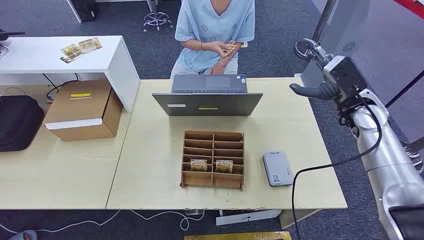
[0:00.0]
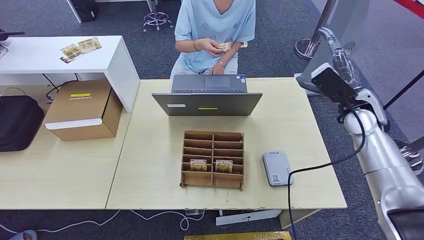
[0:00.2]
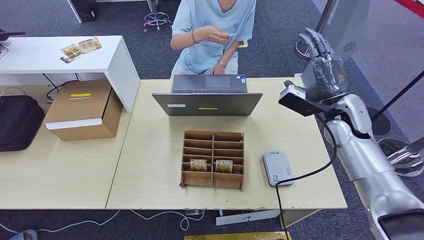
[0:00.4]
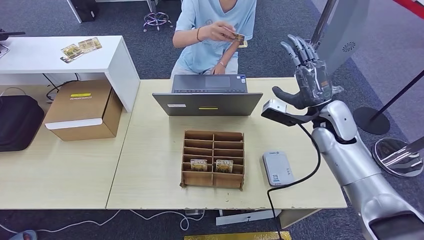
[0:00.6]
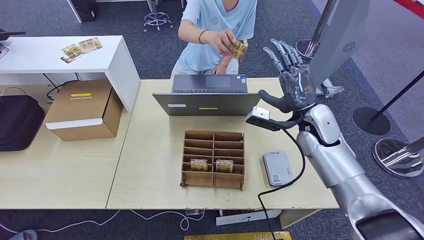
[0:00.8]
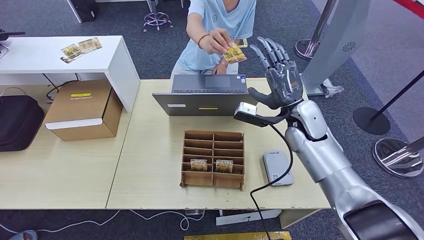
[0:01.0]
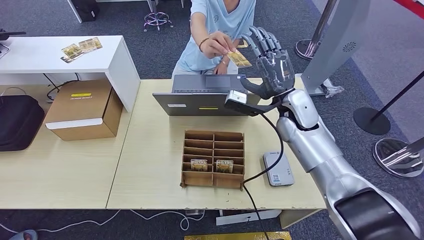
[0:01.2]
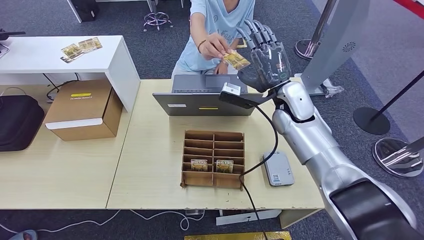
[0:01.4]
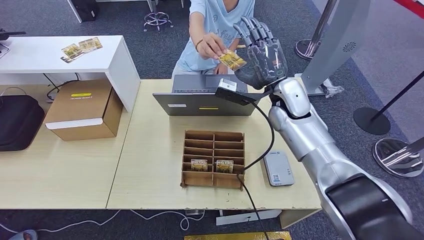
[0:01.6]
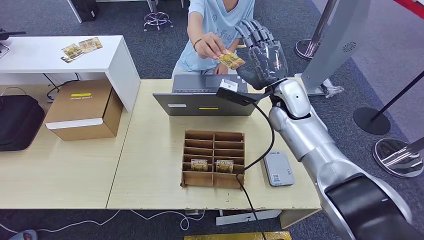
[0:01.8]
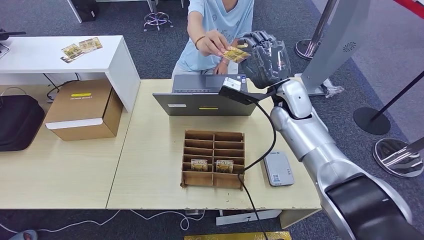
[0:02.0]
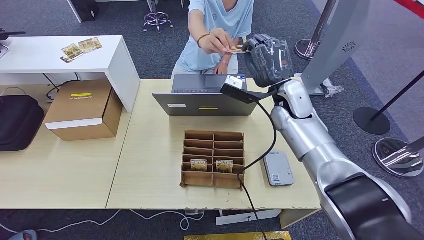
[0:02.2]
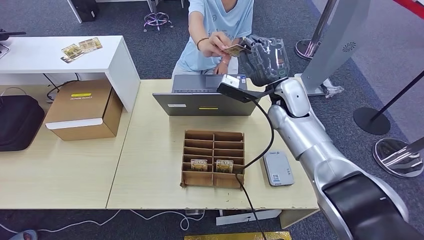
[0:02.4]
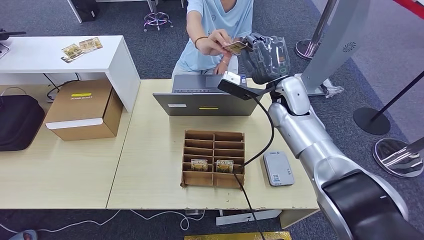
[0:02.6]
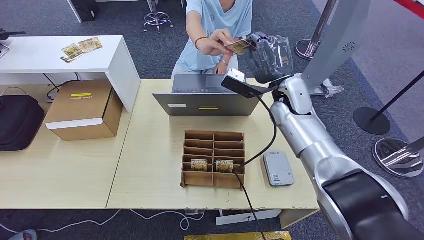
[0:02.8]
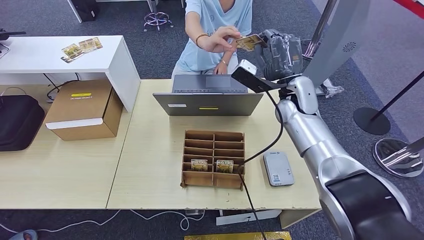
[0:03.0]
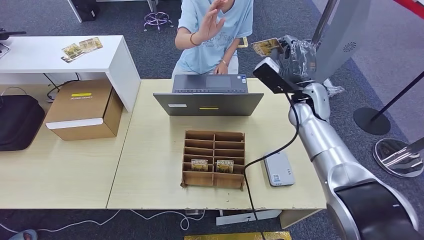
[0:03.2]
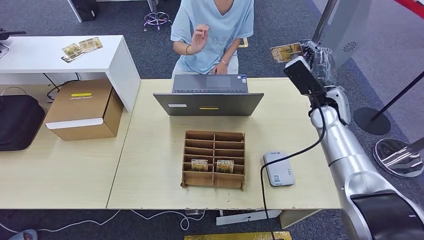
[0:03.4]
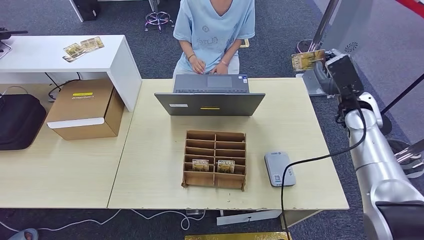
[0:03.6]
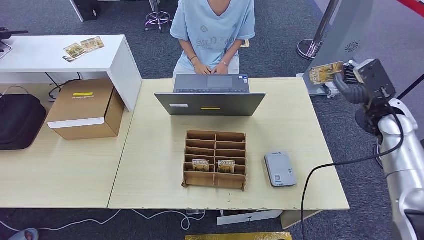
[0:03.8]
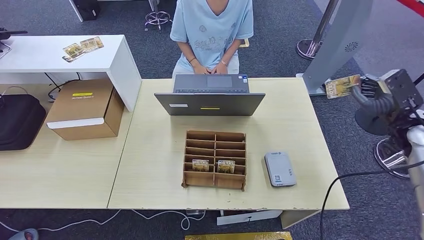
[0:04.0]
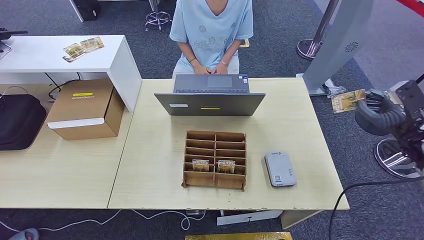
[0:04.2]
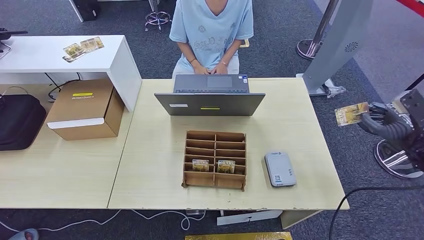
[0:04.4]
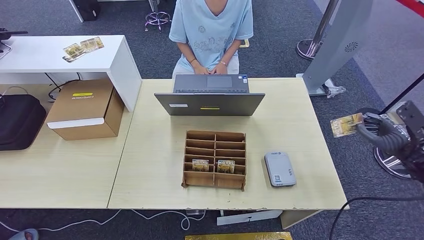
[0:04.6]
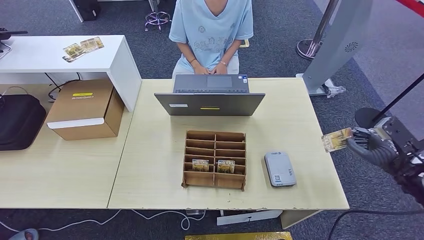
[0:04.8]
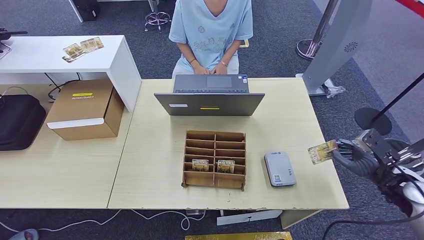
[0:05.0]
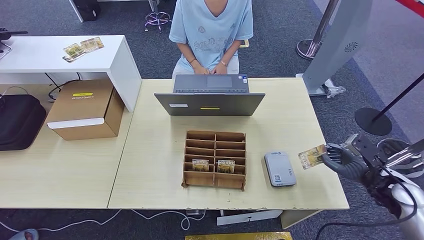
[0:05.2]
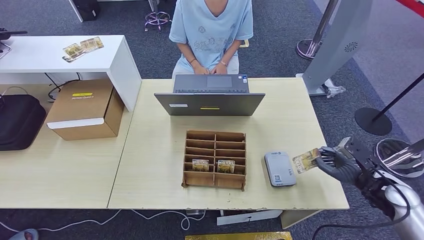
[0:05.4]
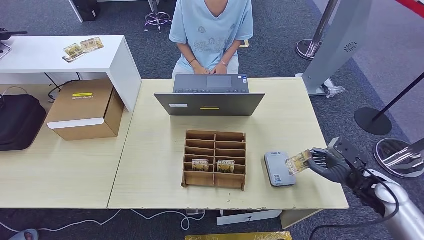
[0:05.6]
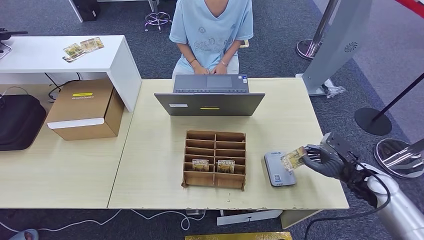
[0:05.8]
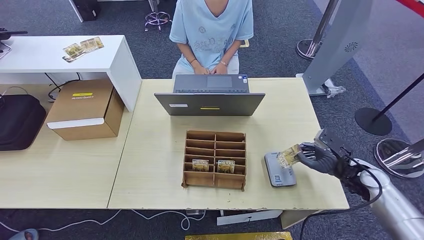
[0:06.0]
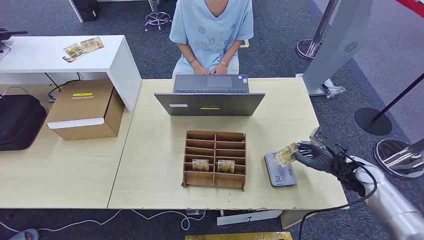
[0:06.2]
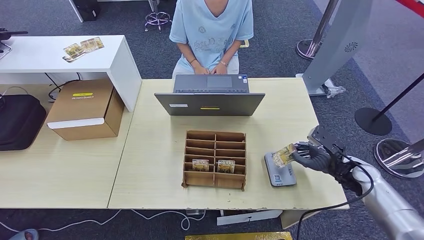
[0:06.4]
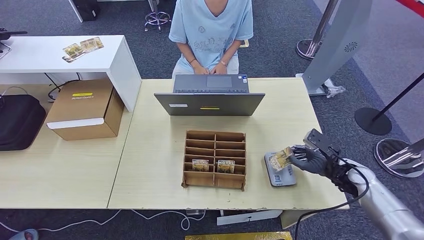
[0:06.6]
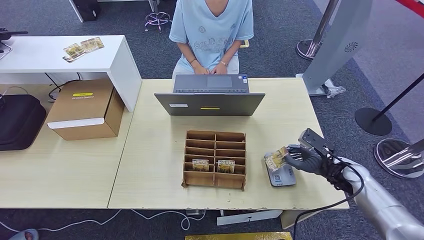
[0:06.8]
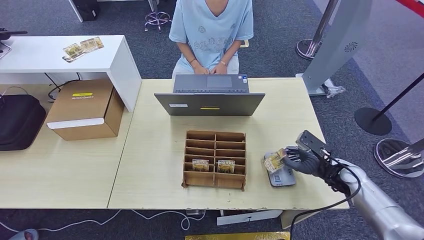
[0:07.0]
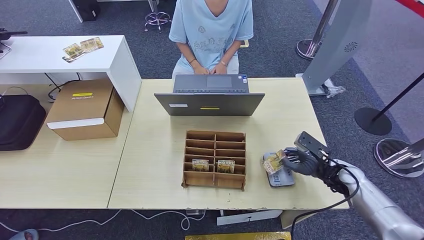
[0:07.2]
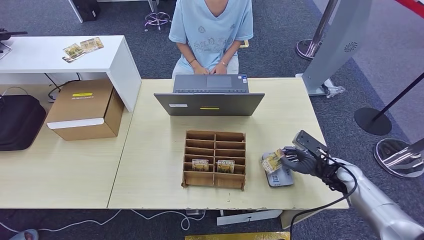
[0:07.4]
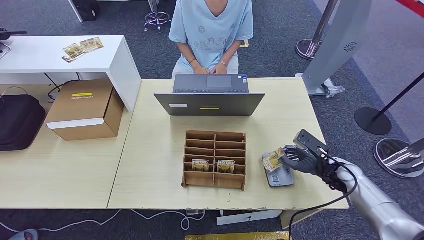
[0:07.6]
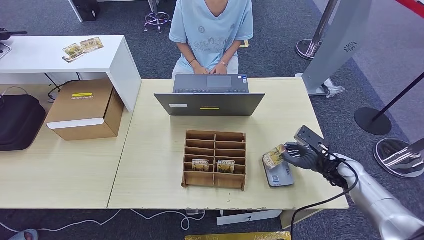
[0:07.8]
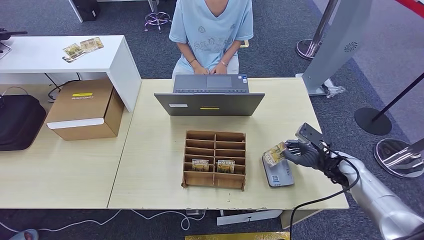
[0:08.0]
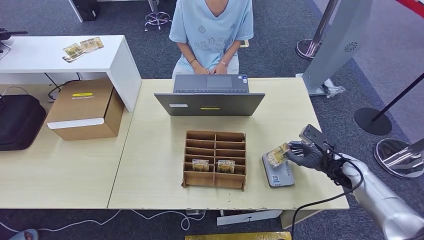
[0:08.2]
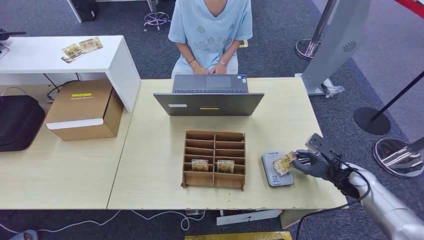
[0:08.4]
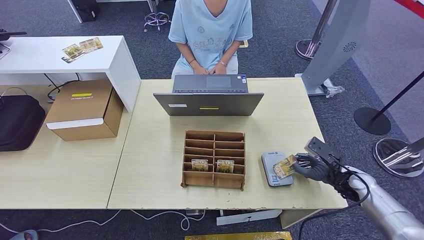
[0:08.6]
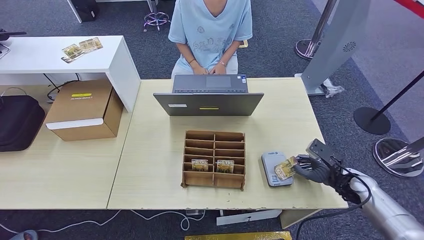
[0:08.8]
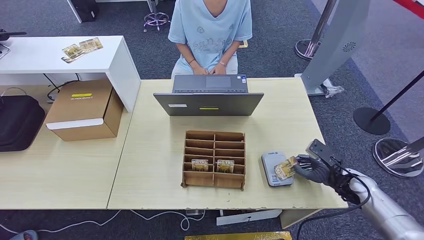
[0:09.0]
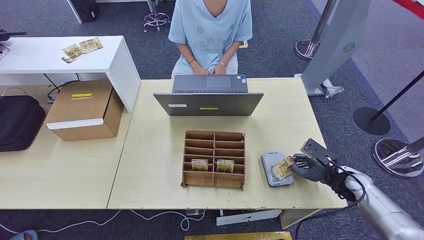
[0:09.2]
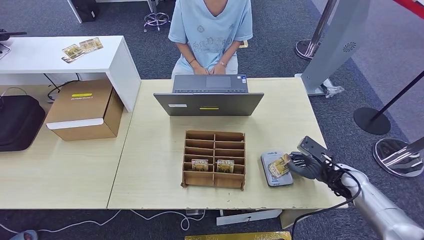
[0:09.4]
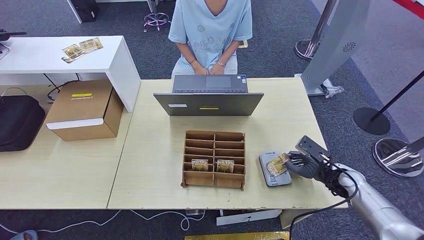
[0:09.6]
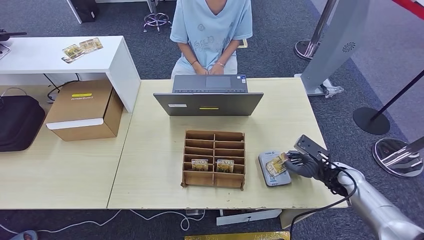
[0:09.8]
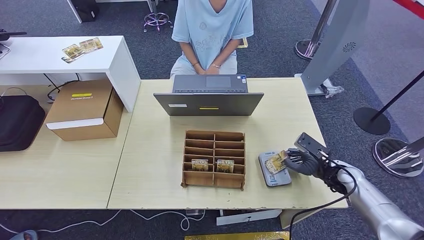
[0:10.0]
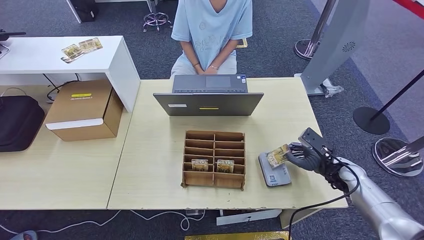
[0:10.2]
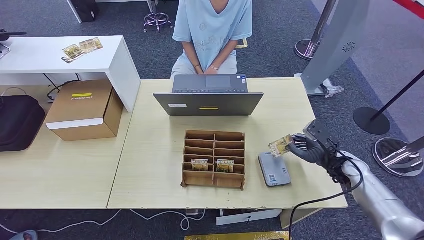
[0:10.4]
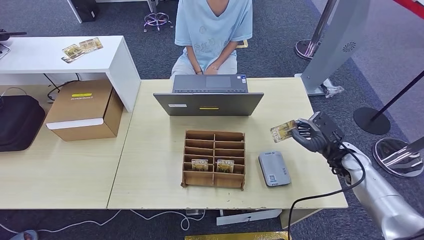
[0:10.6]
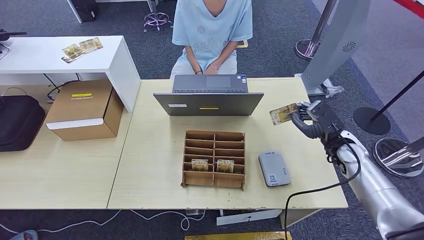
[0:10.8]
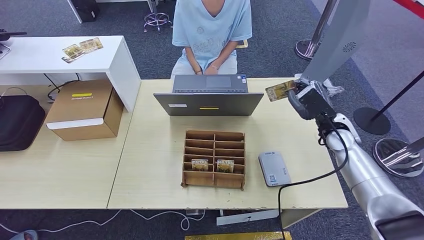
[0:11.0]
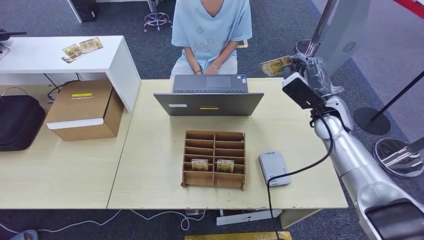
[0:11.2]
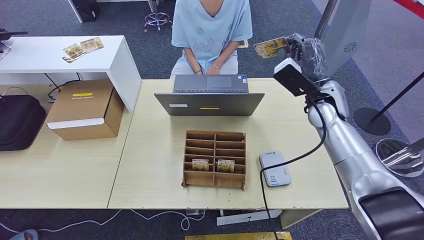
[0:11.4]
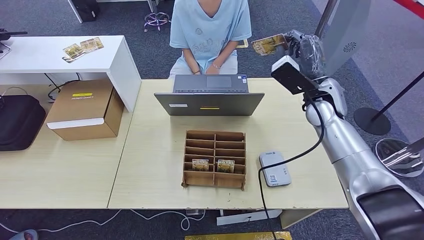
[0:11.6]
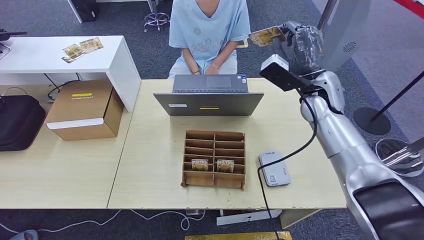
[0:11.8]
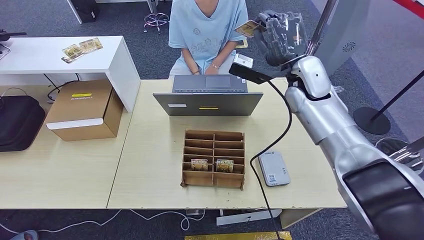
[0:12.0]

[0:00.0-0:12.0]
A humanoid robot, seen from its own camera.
Step, 0:00.0 to 0:03.6: Take the ID card from the person's hand.
Step, 0:03.8 to 0:10.4: Place the ID card on the card reader.
0:01.6 to 0:03.0: The hands move only a little.
0:03.0 to 0:04.4: The right hand goes about 35 cm to the right and backward.
0:04.4 to 0:06.0: The right hand heads to the left and downward, covering about 15 cm.
0:06.0 to 0:07.6: The right hand ends up about 5 cm from where it was.
0:07.6 to 0:09.0: There are only small adjustments of the hands.
0:09.0 to 0:10.4: The right hand ends up about 5 cm from where it was.
0:10.4 to 0:12.0: The right hand heads upward, to the left and forward, covering some 30 cm.

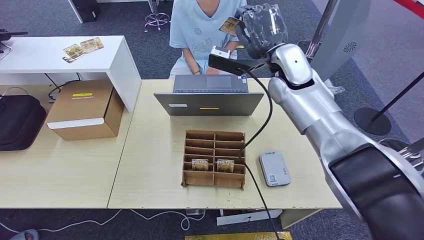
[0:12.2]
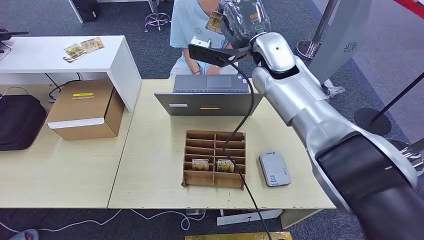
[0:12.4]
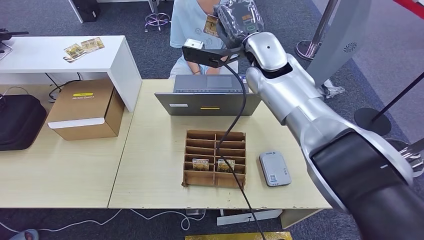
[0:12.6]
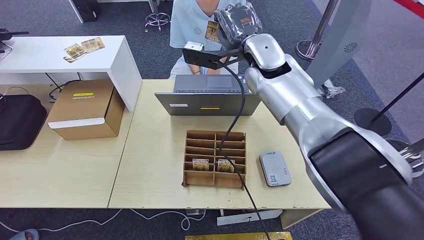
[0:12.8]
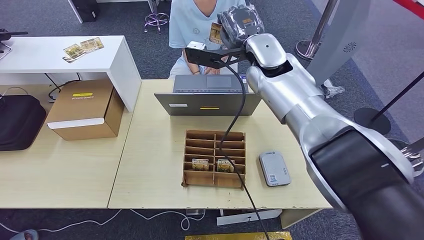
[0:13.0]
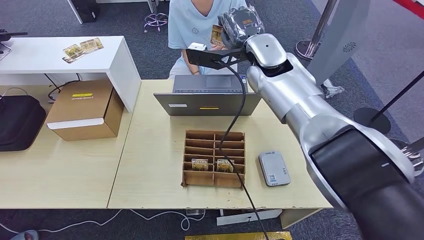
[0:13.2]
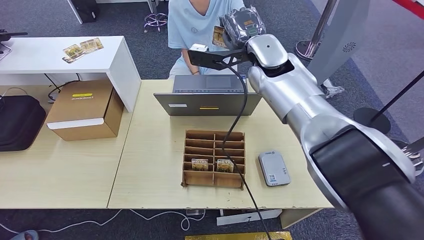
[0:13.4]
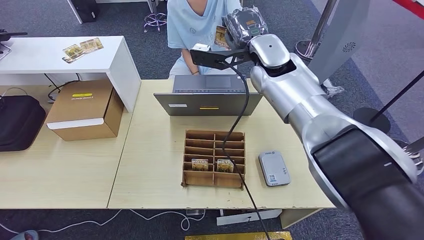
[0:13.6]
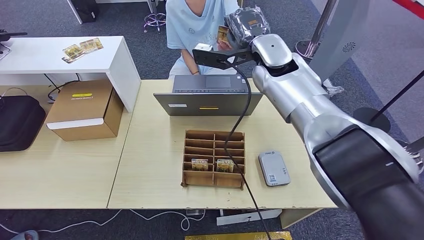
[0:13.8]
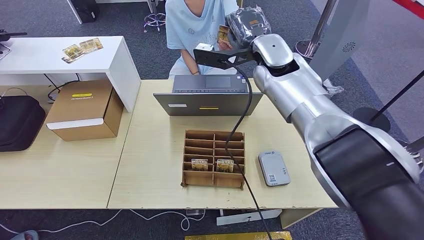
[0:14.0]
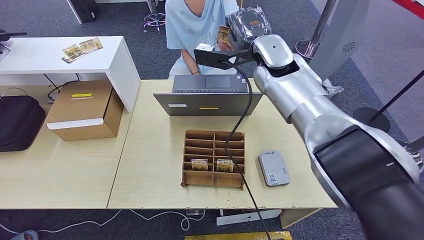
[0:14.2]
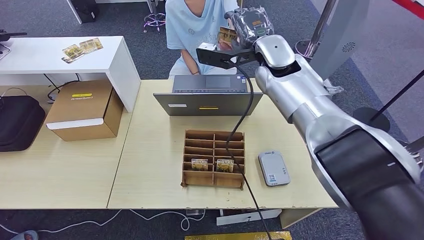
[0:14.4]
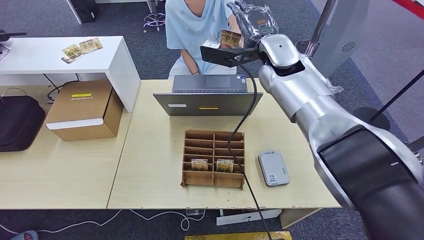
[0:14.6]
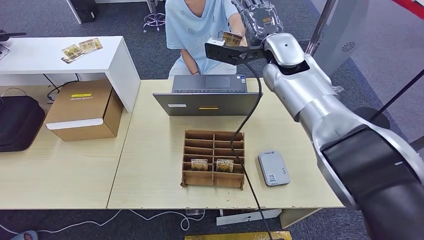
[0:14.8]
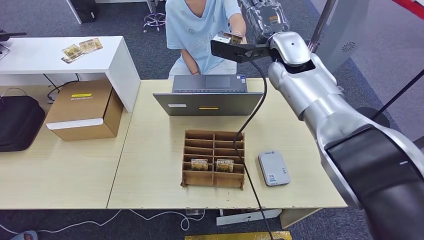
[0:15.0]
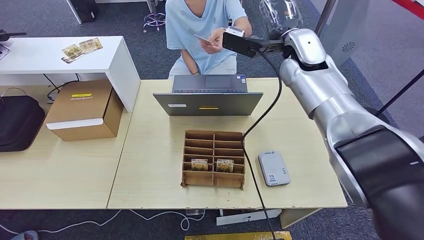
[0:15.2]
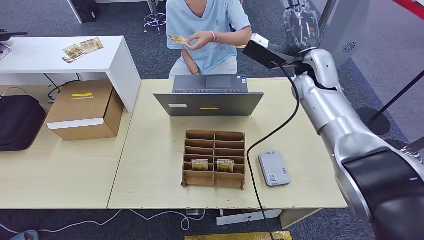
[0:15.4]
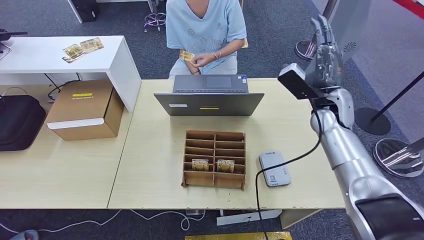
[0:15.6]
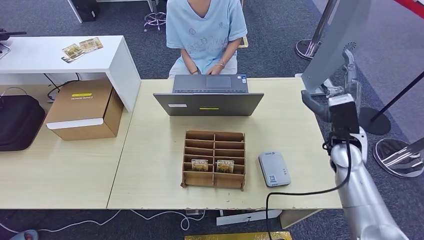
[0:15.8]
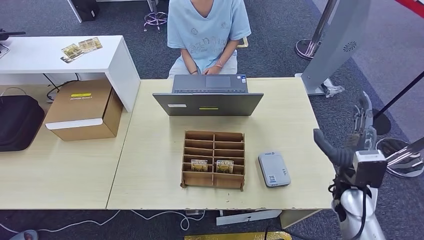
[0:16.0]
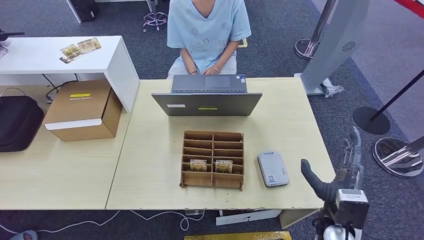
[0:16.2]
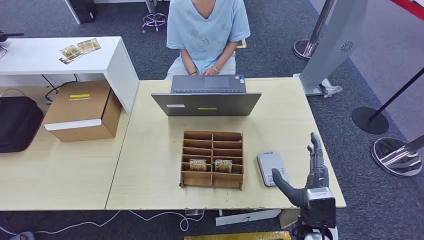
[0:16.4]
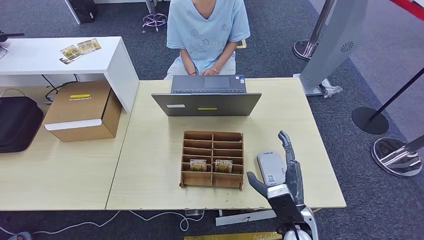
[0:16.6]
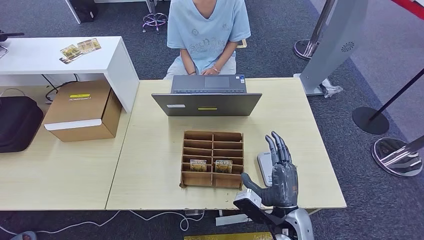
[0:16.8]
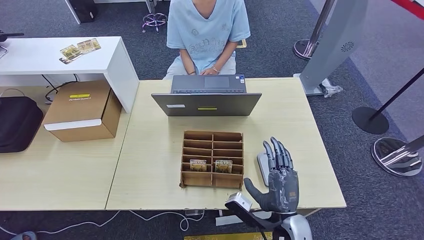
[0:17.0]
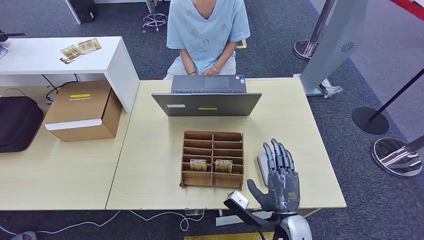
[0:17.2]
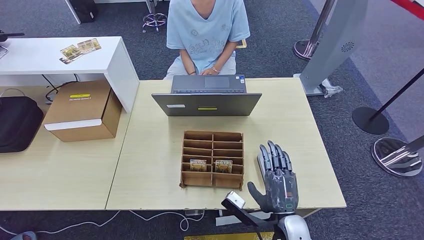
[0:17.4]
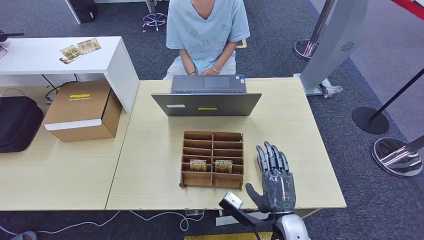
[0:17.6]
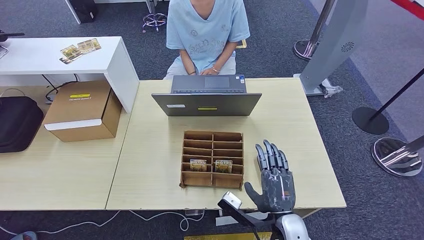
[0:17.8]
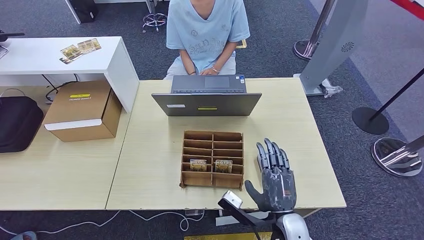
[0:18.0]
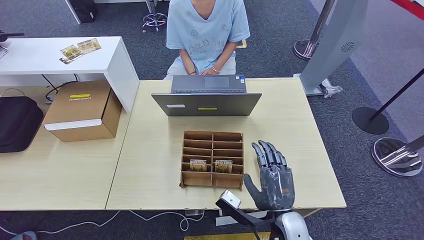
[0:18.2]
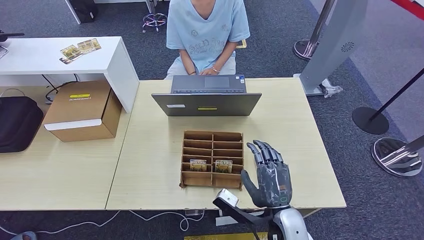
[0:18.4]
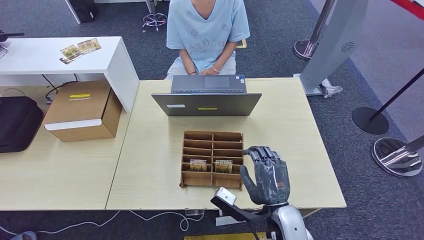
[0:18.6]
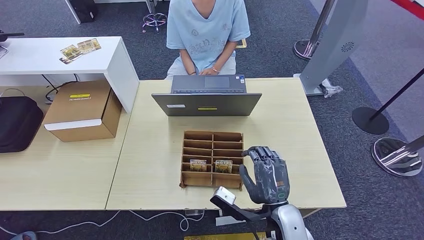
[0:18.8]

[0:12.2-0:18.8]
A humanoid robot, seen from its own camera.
Step, 0:12.2 to 0:16.2: Hand the ID card to the person.
0:13.8 to 0:15.4: The right hand goes about 10 cm to the right.
0:17.2 to 0:18.8: The hands stay close to where they were, moving slightly.
